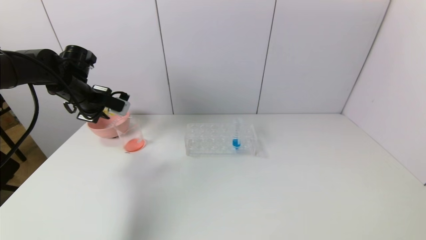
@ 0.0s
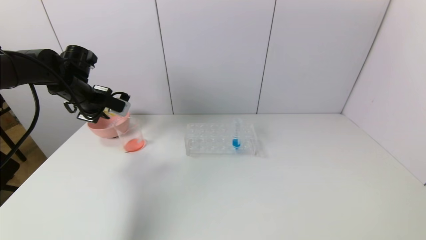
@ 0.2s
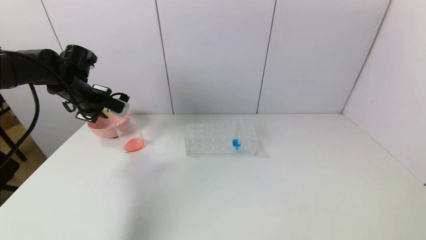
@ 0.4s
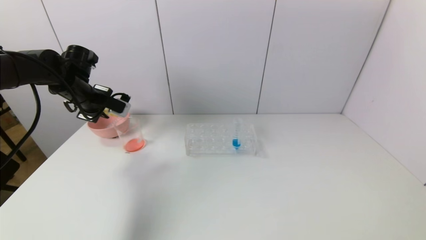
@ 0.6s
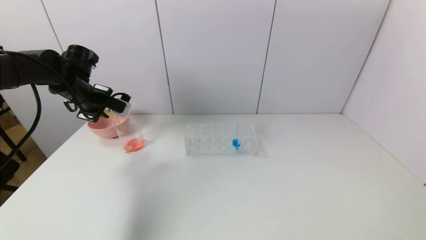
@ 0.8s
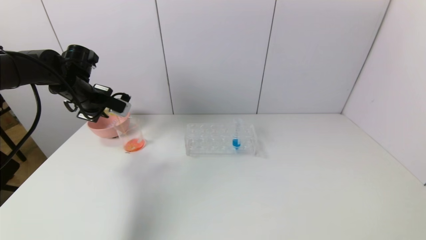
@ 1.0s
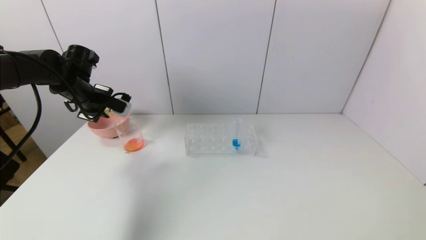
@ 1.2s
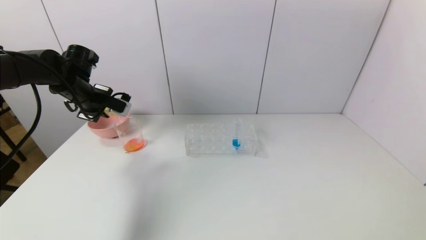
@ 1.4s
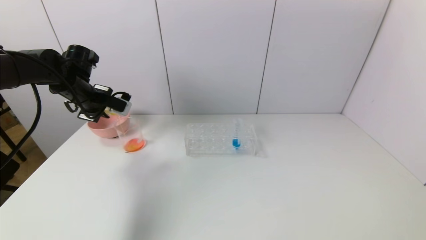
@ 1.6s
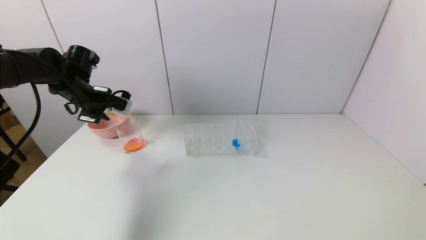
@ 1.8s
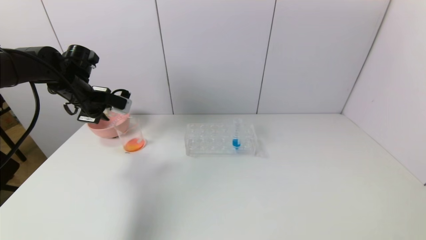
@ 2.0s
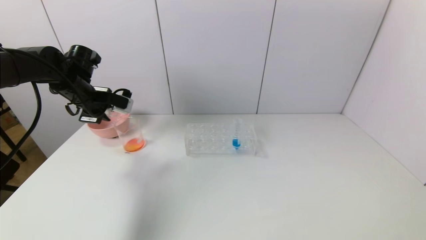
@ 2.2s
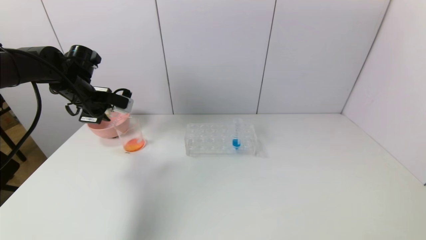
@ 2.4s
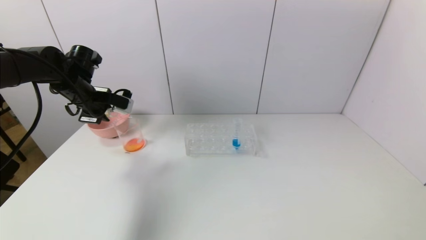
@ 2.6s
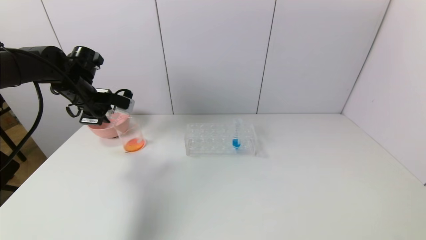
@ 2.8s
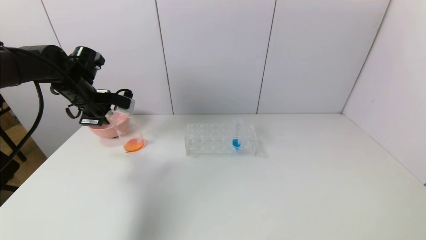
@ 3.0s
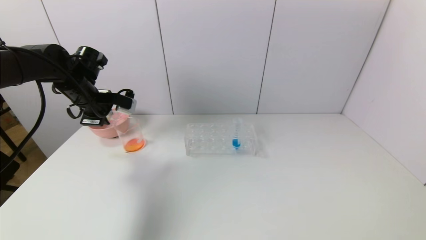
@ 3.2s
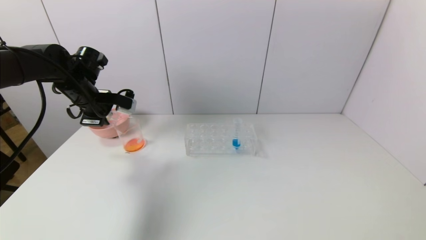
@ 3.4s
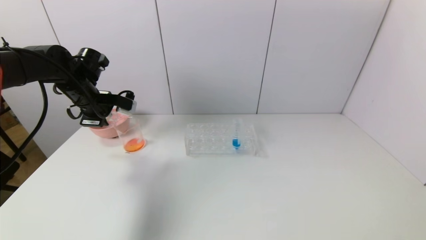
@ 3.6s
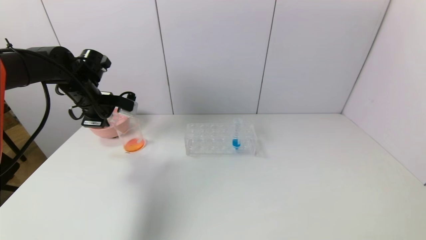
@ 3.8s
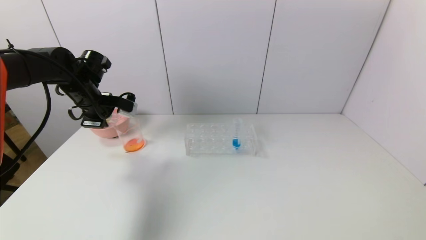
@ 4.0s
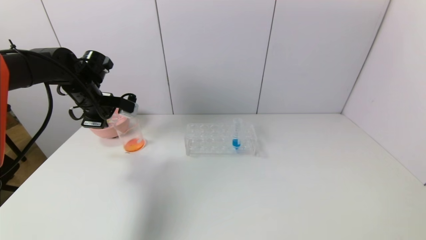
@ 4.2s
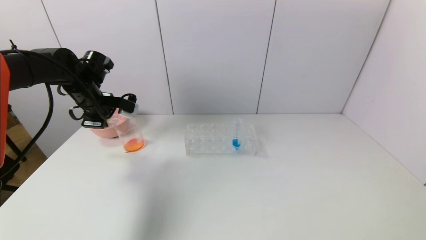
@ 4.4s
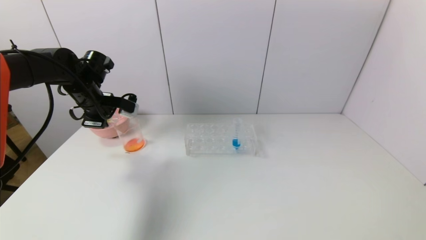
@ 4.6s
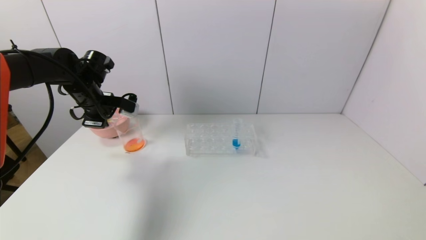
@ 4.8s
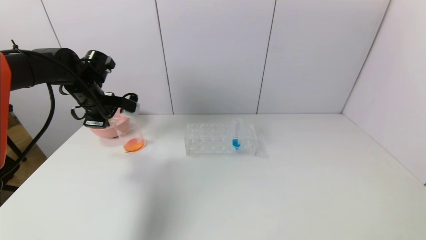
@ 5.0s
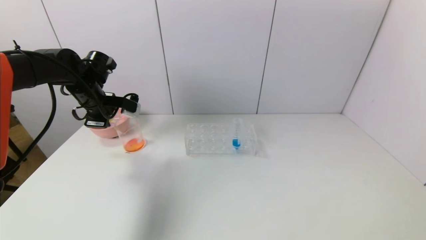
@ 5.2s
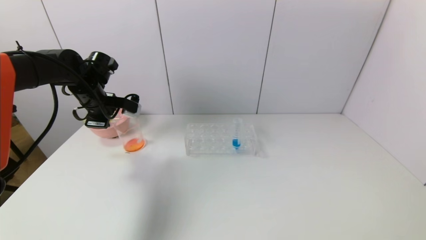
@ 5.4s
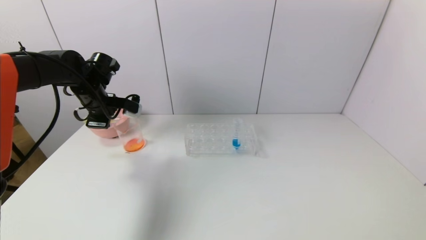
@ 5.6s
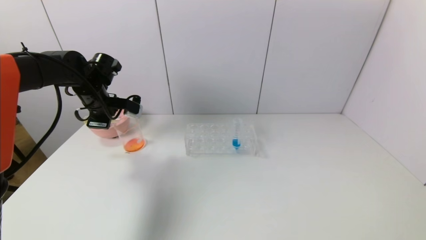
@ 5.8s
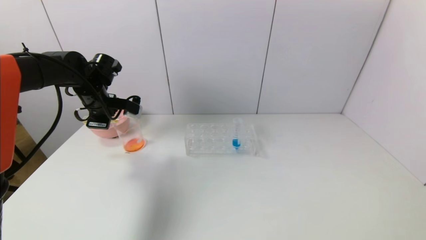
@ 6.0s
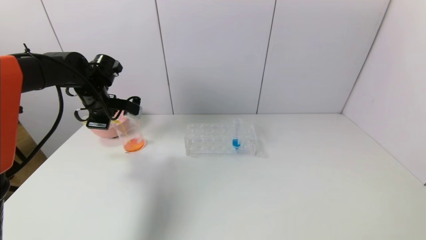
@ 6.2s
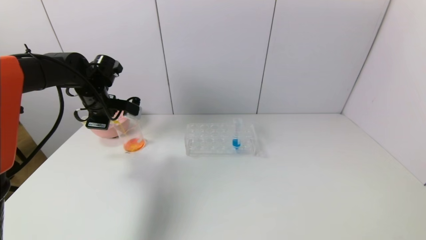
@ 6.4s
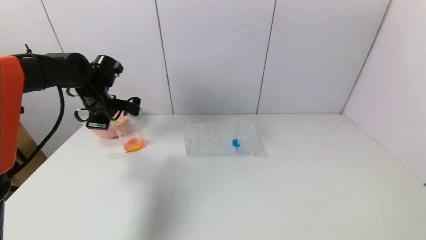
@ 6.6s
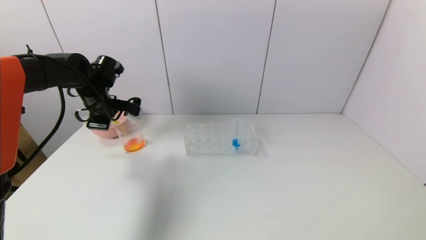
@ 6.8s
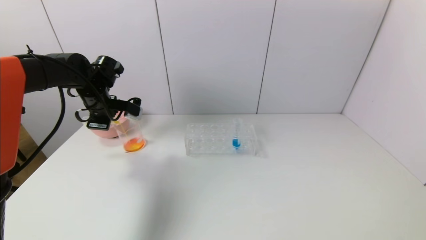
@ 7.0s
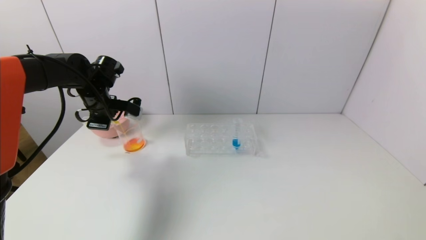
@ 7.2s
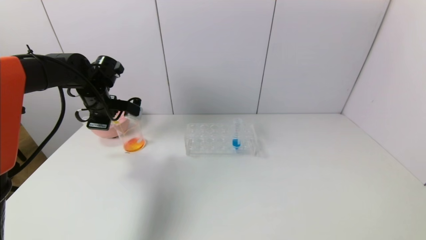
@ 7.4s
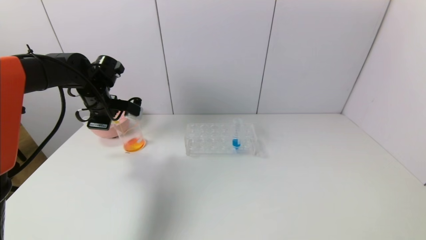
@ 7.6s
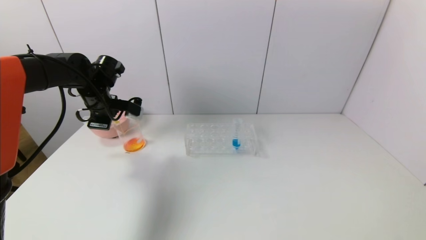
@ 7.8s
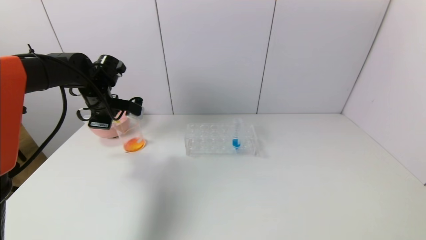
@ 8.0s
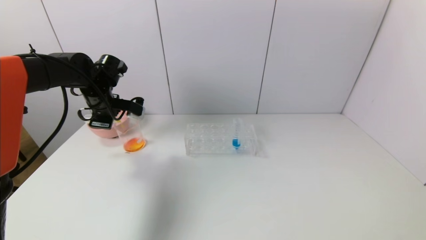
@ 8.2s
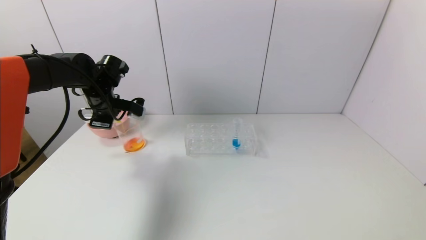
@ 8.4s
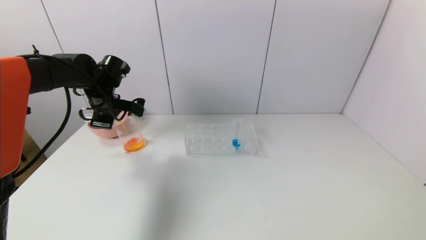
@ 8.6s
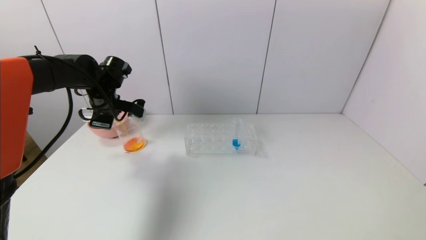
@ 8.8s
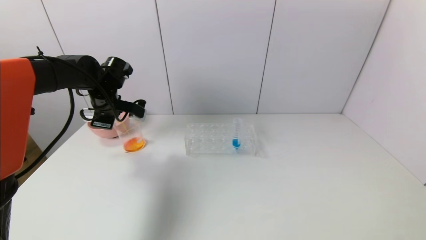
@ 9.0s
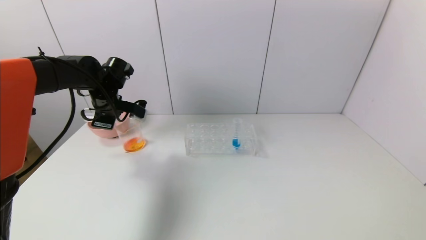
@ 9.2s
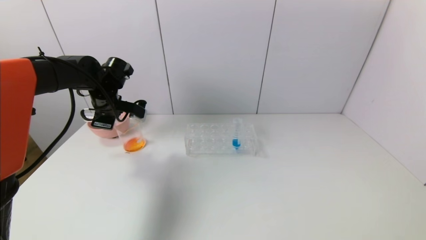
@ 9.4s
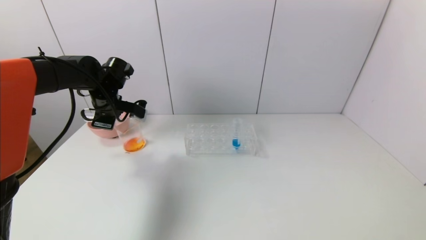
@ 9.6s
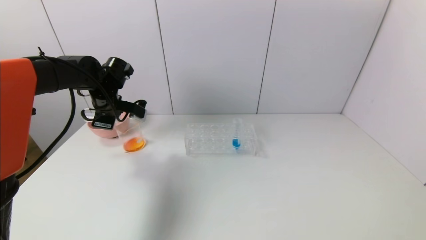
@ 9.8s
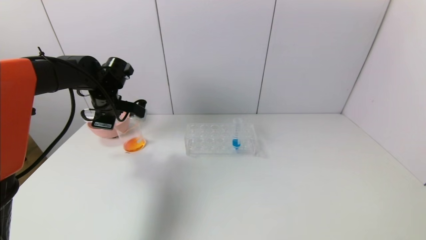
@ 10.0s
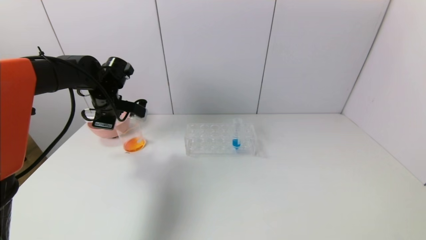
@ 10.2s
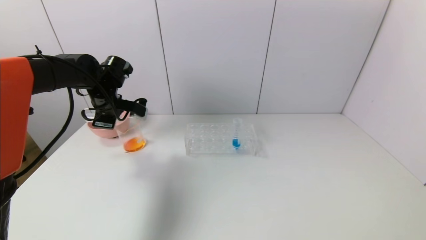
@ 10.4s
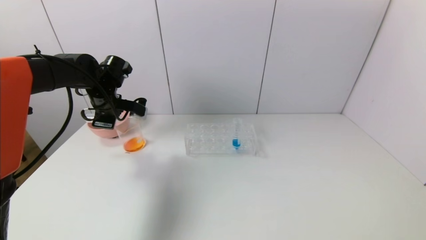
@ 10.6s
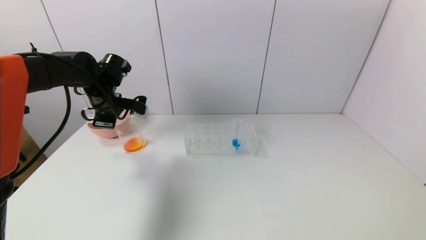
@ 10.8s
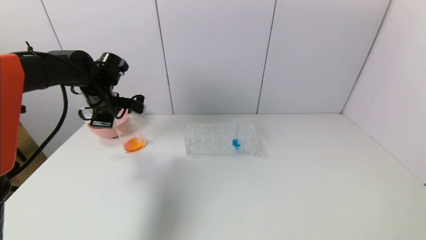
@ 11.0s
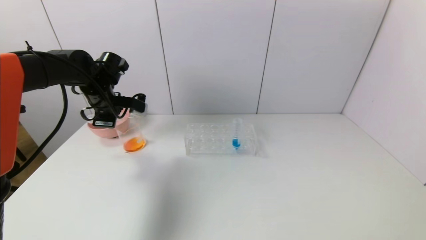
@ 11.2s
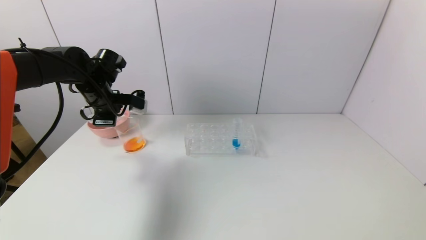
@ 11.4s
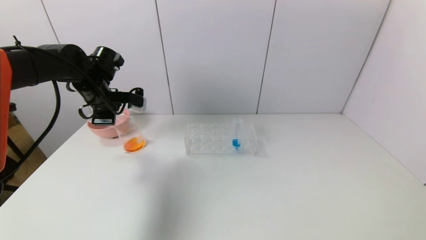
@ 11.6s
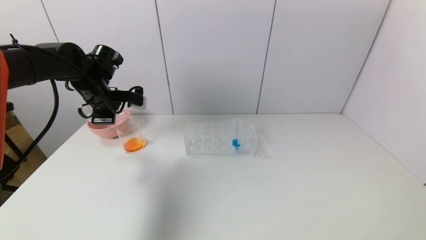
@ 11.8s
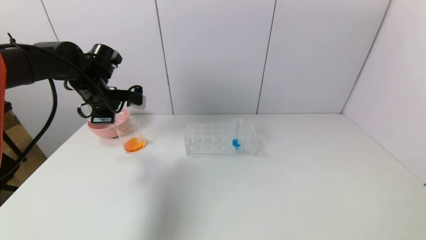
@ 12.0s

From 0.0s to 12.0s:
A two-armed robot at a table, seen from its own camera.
Task of the whole recording: pick up the test tube with yellow pigment and the test tube with red pigment by grippers and pour them into the beaker.
Step, from 0.0s to 9.8s: Pour the yellow reagent into the graduated cylinder with the left gripper.
From 0.0s to 1.6s: Neither gripper changes place.
From 1.6s to 4.4s: There are only small adjustments of the grippers.
From 4.4s to 6.0s: The grippers move only a little.
From 6.0s to 7.6s: Neither gripper changes place.
From 7.6s to 9.0s: The grippers make only small movements.
From 9.0s to 10.4s: Neither gripper changes place.
From 10.4s to 12.0s: The grippers make only small movements.

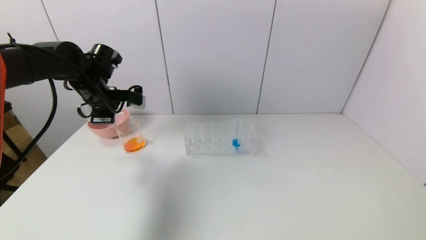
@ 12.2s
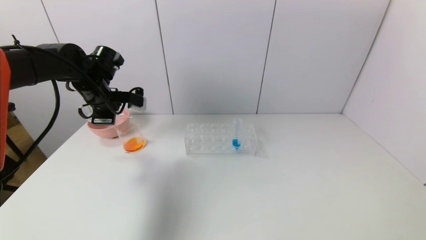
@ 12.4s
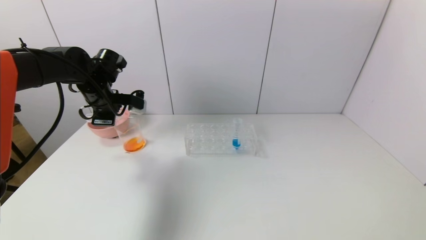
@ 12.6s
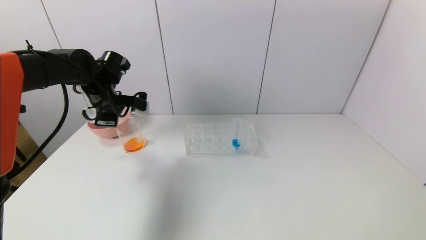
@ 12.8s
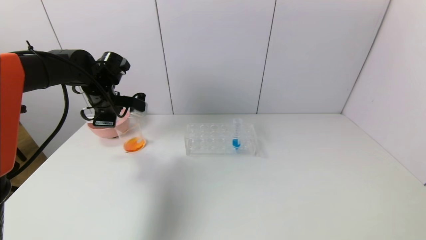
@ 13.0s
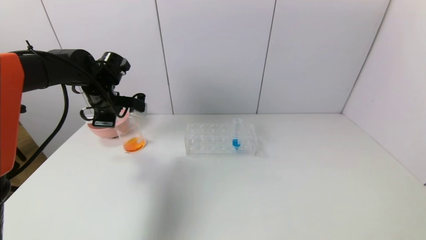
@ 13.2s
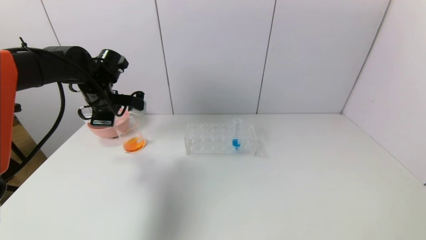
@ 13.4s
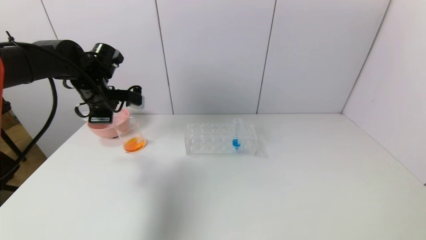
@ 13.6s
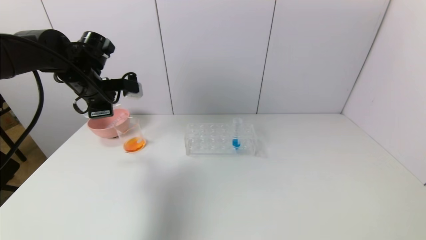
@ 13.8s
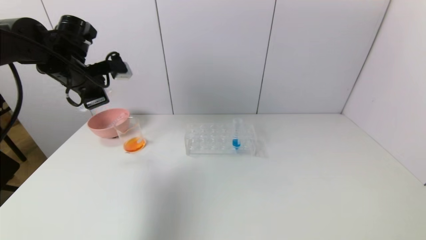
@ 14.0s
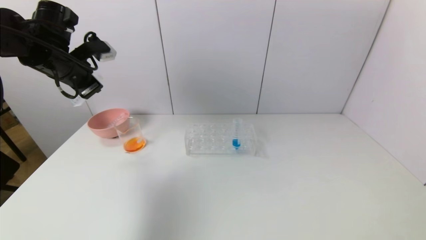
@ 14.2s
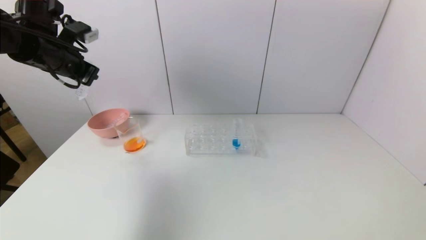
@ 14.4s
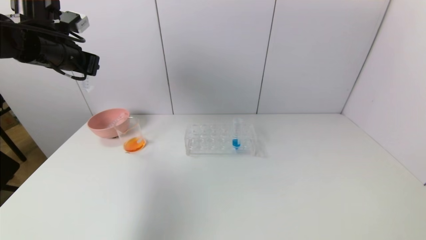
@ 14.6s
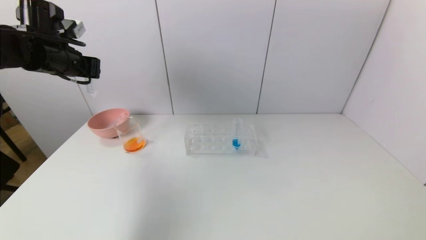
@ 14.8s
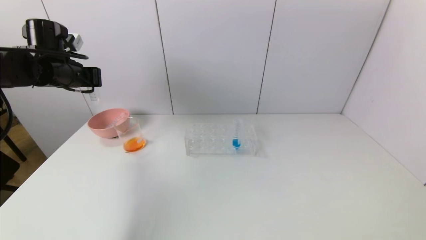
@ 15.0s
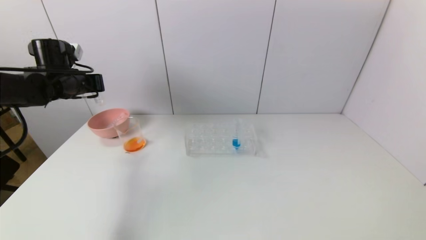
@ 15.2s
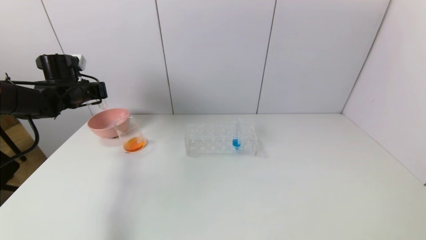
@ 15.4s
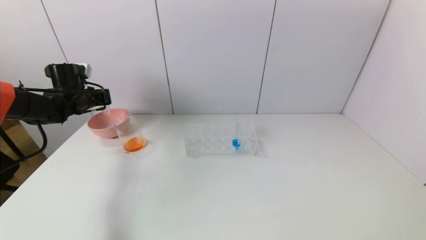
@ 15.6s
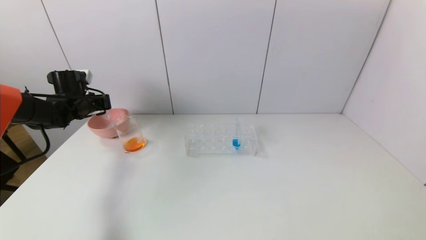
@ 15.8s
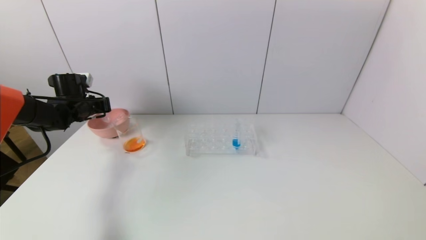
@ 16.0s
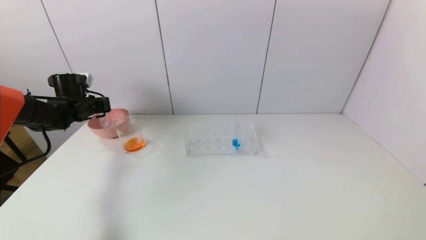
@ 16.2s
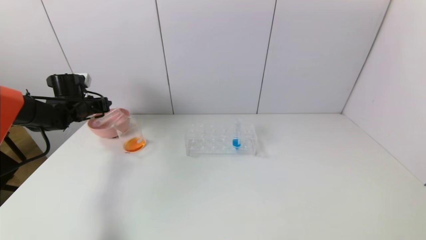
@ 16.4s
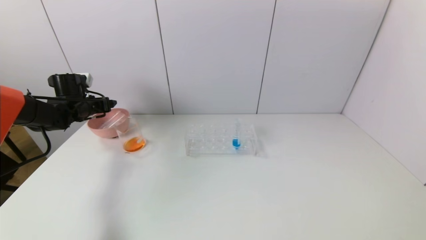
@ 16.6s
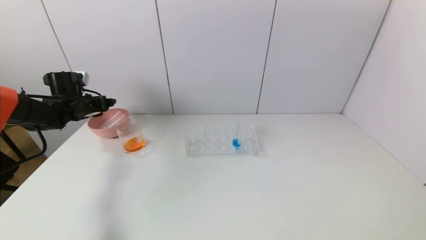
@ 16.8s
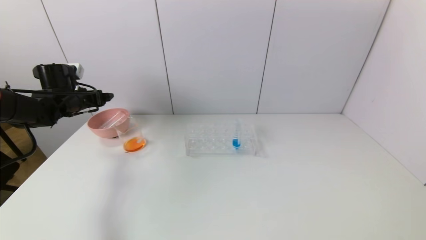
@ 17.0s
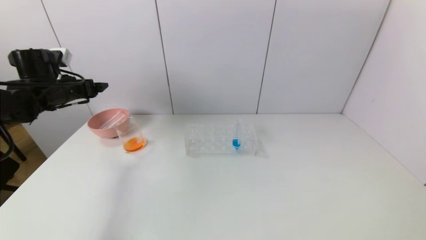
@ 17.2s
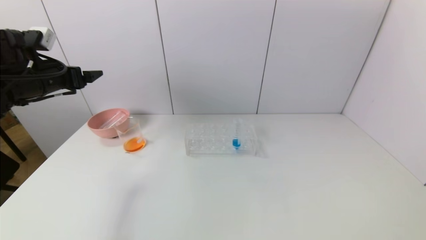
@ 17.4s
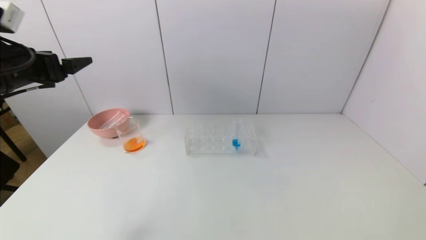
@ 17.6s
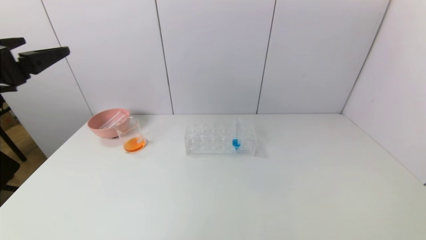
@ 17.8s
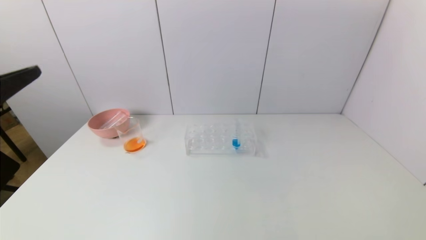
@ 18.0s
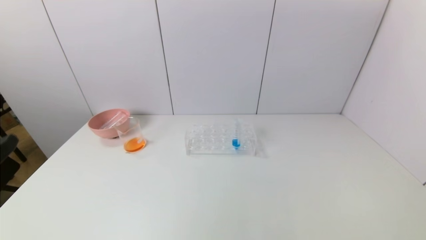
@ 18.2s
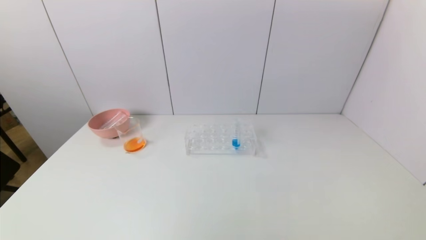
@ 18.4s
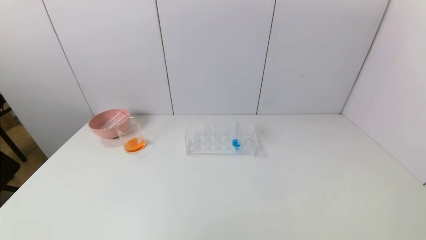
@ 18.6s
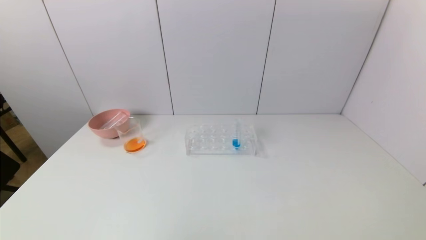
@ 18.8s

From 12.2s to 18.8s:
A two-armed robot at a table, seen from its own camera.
Task of the whole recording: pick up the test tube with yellow pigment and the test tube with red pigment by grippers and pour them into the beaker.
Step, from 12.2s to 16.4s: Place the test tube into the pink bowl with the left gripper.
From 12.2s to 13.8s: The grippers make only small movements.
From 13.8s to 15.4s: The left gripper heads to the left and downward, covering approximately 10 cm.
From 15.4s to 17.2s: The left gripper shifts by about 5 cm, and opens its fingers.
From 17.2s to 18.8s: The left gripper heads backward, covering approximately 40 cm.
